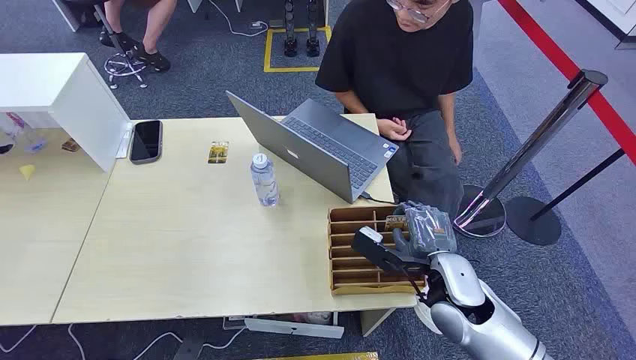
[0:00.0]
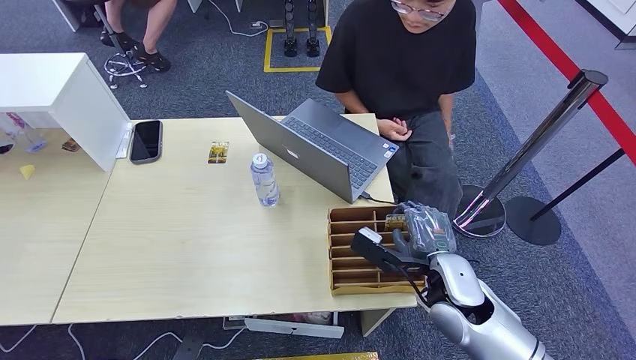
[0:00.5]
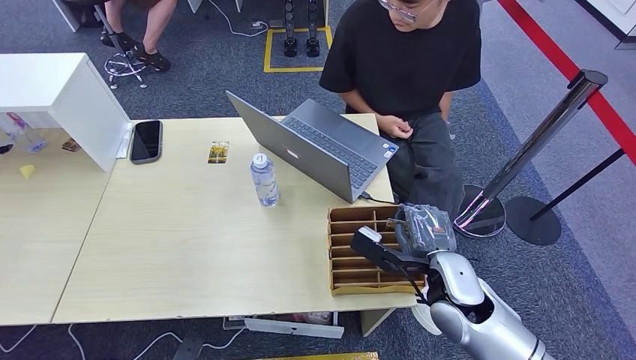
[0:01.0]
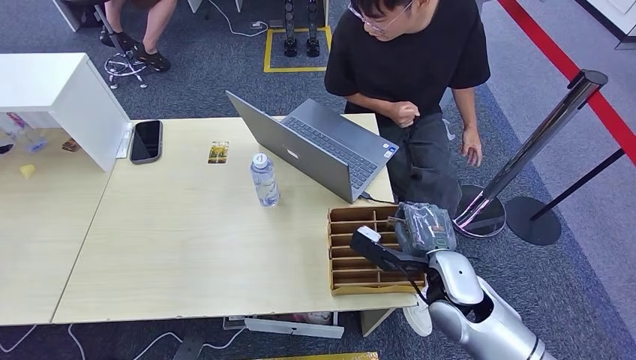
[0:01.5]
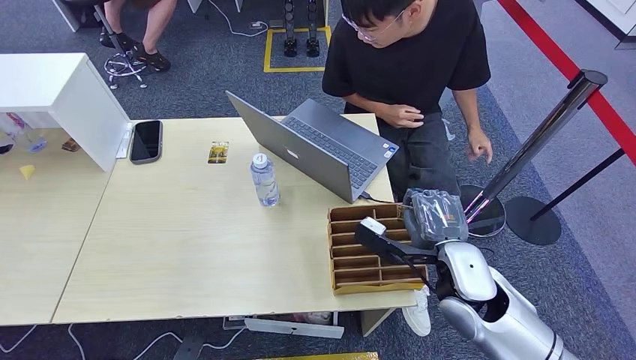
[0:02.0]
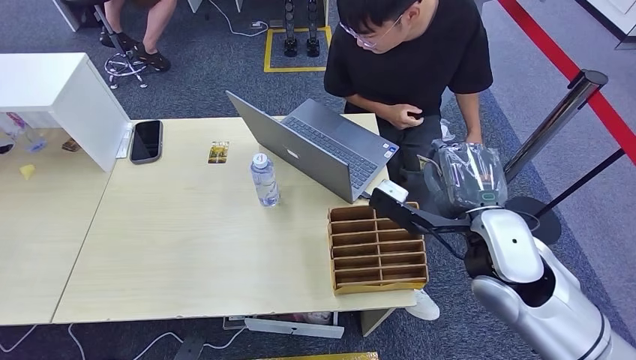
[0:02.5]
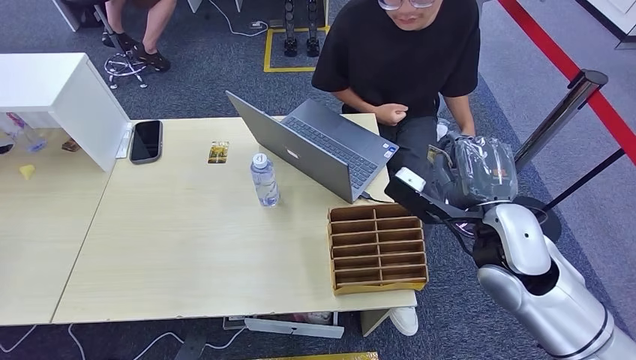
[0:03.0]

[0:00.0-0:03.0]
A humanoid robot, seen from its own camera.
Step, 0:00.0 to 0:02.0: Pick up the key card from the card box.
Step, 0:02.5 to 0:03.0: Hand the key card to the target.
0:01.5 to 0:03.0: The right hand heads upward, covering about 10 cm.

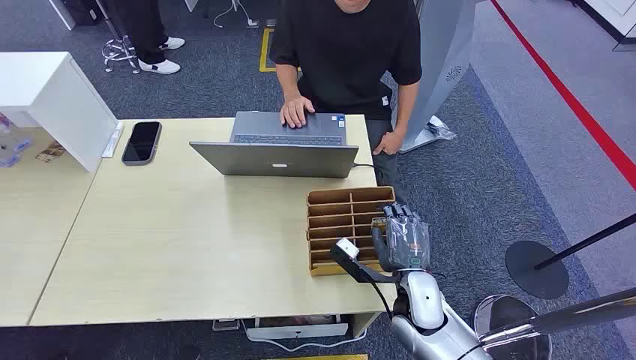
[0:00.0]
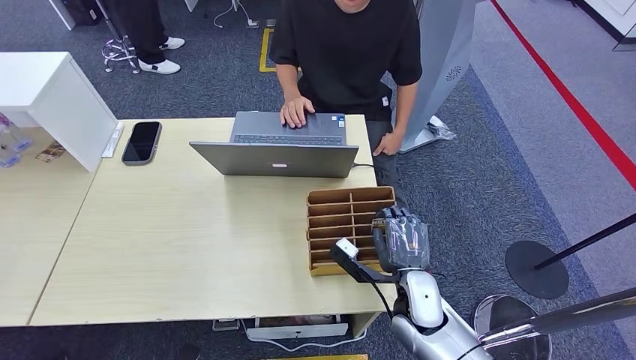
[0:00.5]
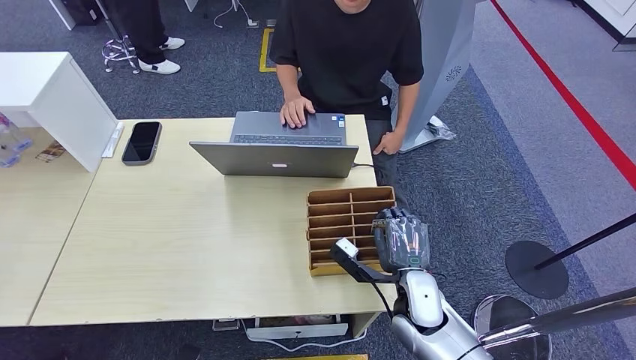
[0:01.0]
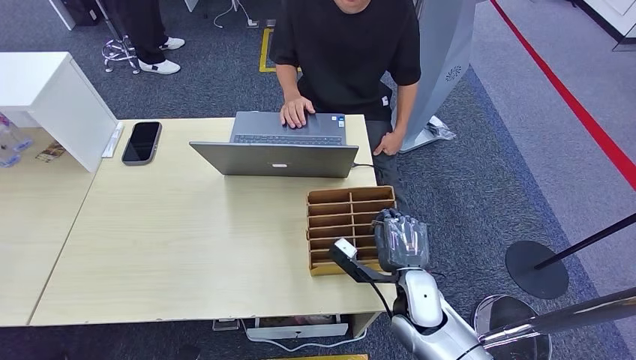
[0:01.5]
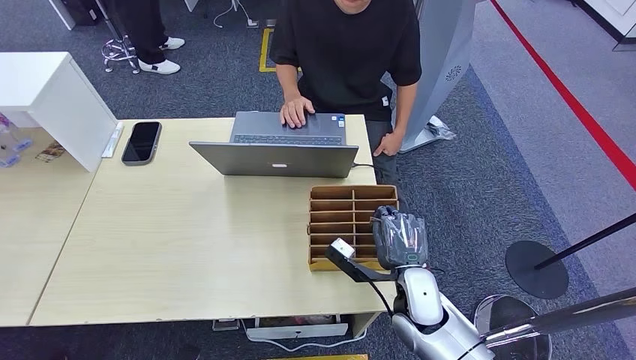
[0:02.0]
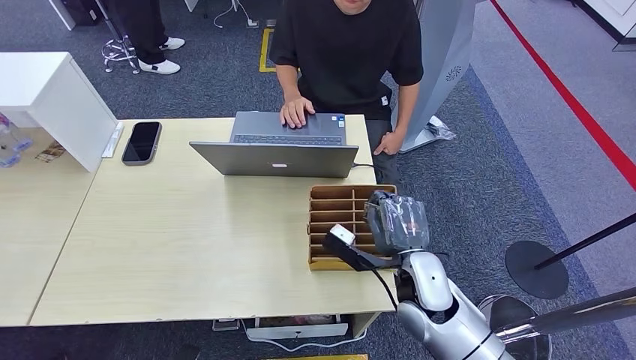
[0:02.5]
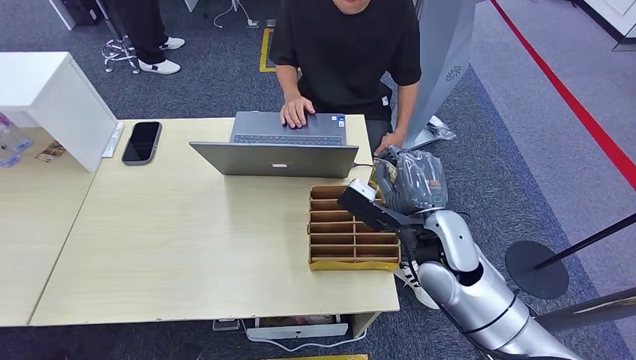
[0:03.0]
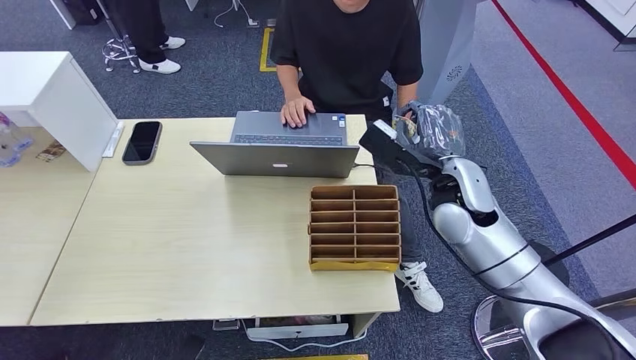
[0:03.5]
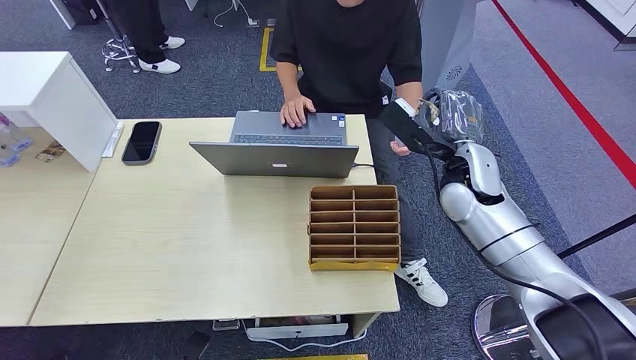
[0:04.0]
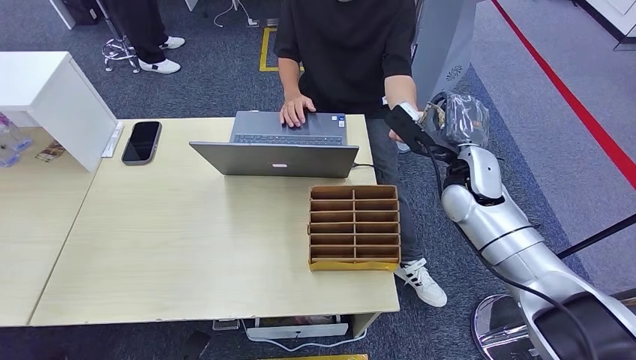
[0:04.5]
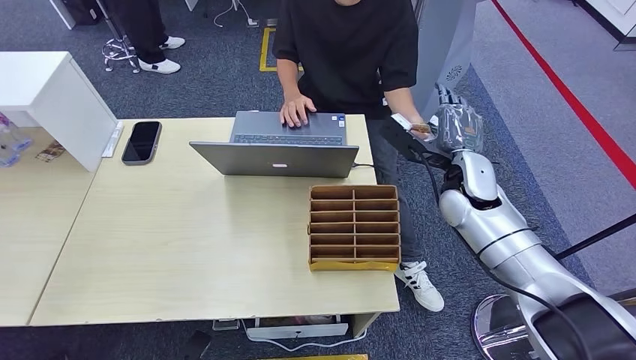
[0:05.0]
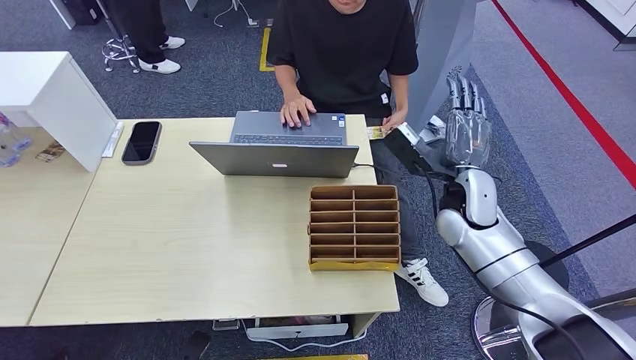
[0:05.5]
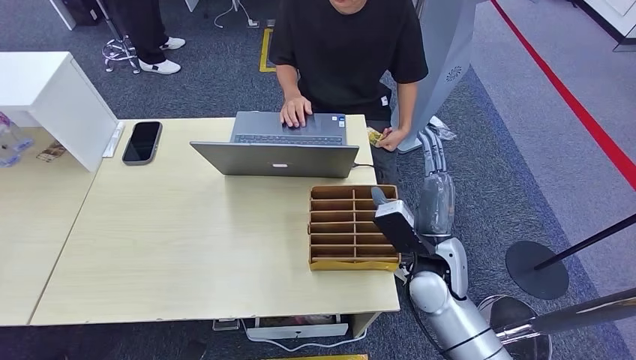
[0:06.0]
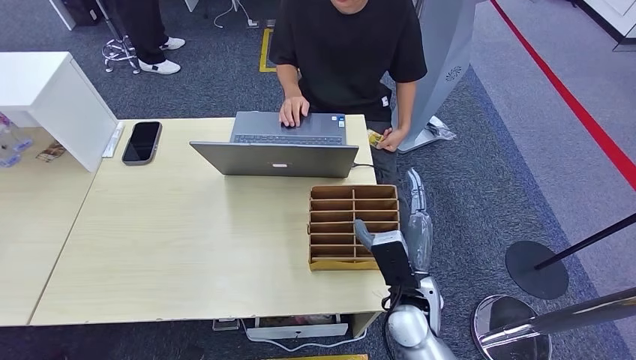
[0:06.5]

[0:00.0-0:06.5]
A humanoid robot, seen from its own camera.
Step, 0:00.0 to 0:03.0: Pick up the key card from the card box.
Step, 0:03.5 to 0:06.5: Hand the key card to the target.
0:02.0 to 0:04.5: The right hand heads forward, upward and to the right, covering about 25 cm.
0:04.5 to 0:06.5: The right hand is displaced backward, downward and to the left by roughly 25 cm.
